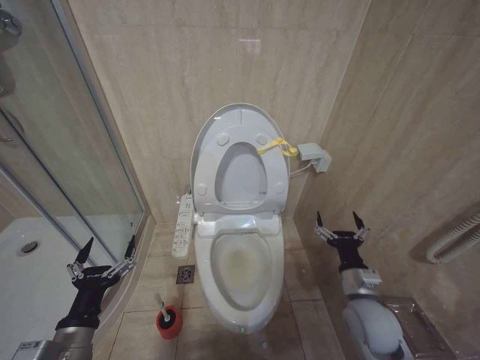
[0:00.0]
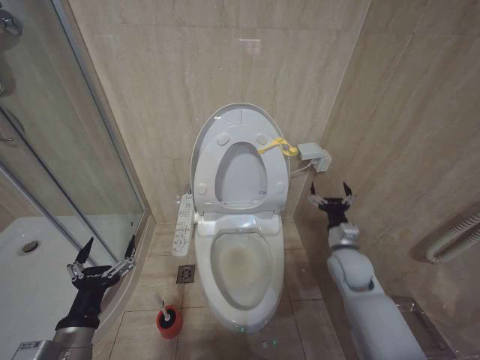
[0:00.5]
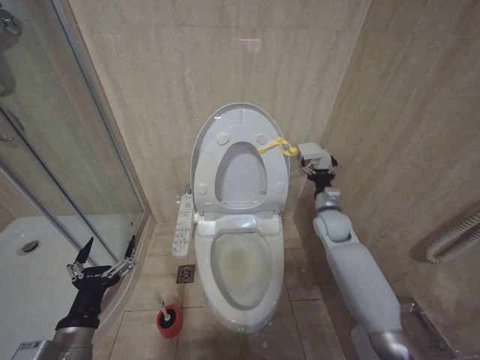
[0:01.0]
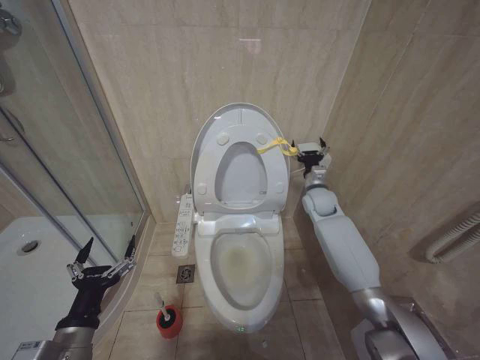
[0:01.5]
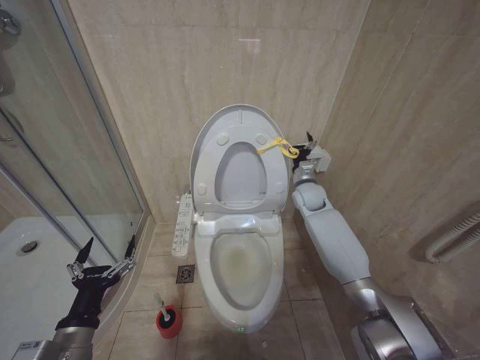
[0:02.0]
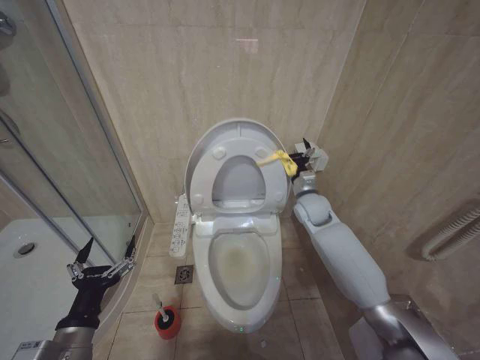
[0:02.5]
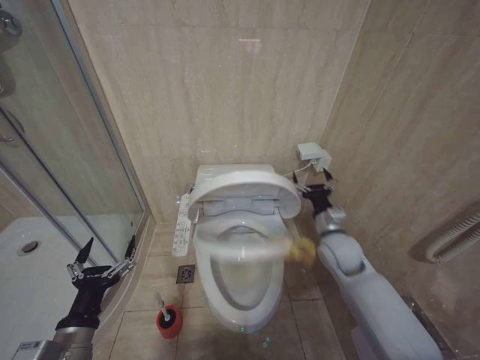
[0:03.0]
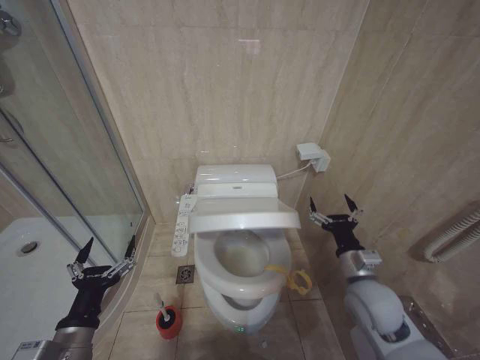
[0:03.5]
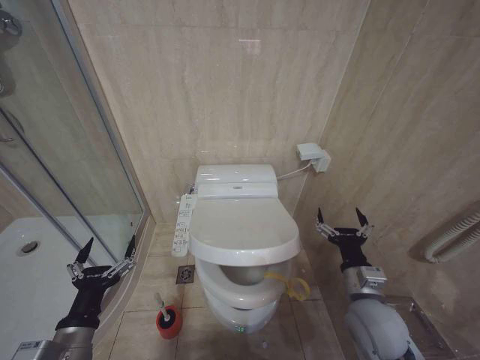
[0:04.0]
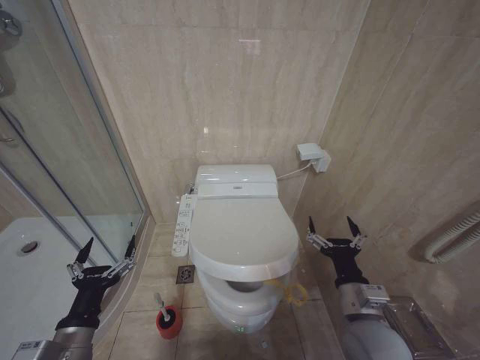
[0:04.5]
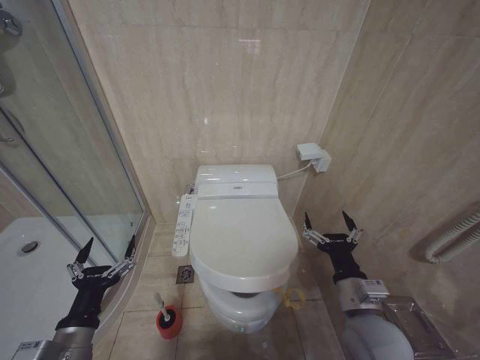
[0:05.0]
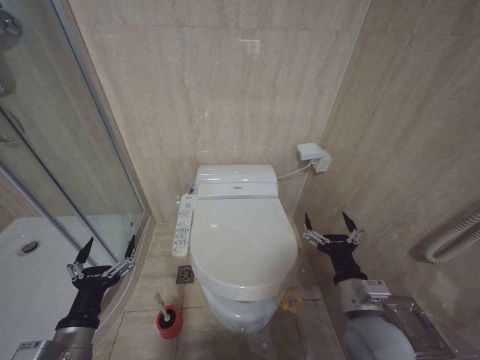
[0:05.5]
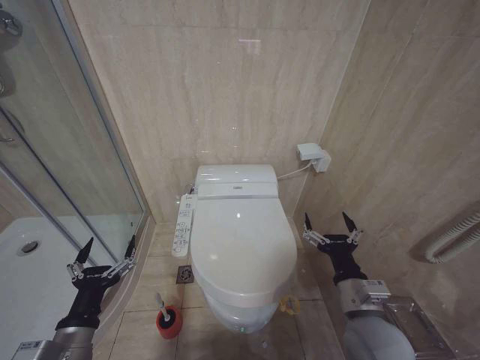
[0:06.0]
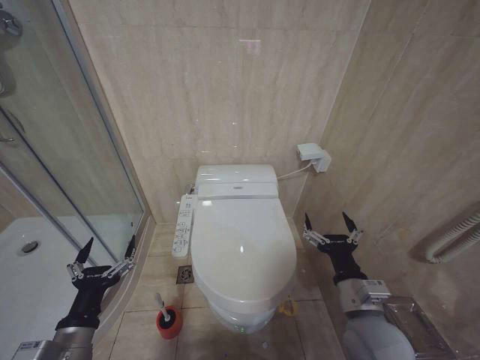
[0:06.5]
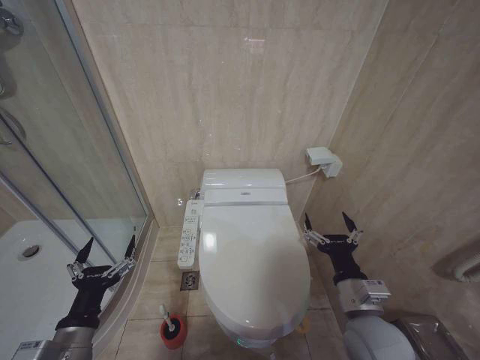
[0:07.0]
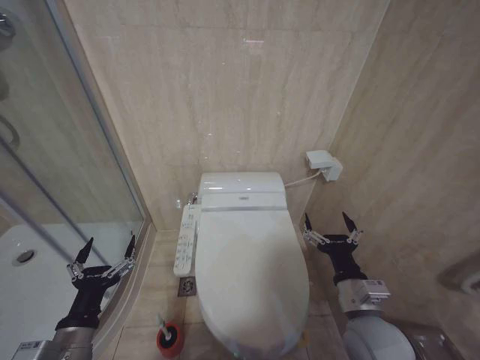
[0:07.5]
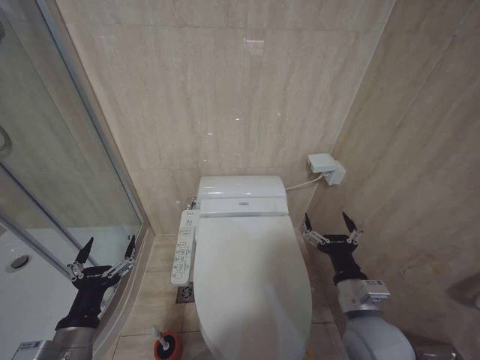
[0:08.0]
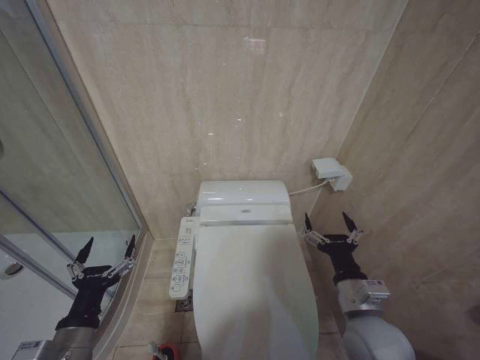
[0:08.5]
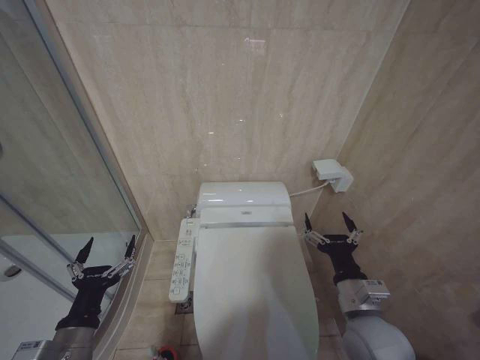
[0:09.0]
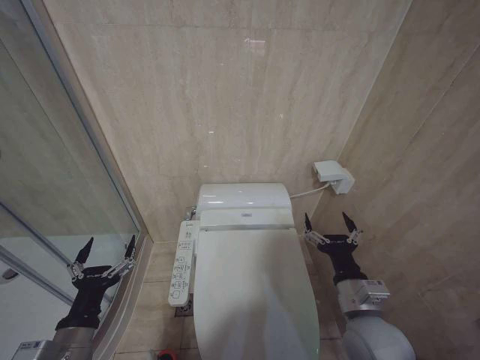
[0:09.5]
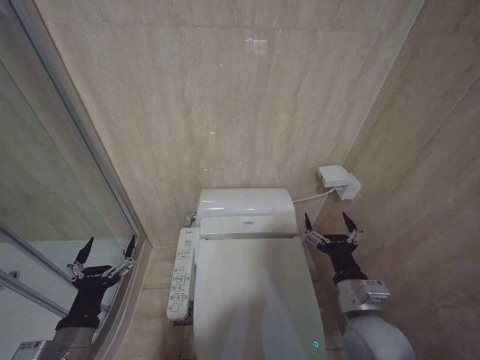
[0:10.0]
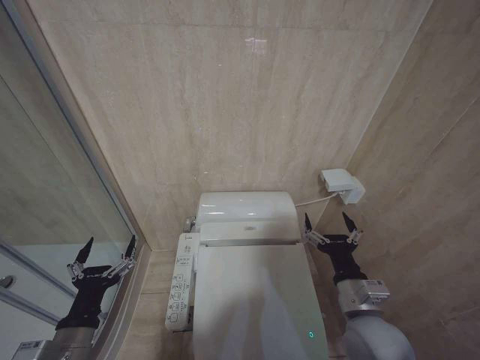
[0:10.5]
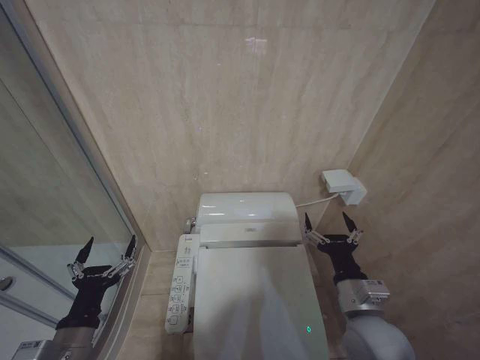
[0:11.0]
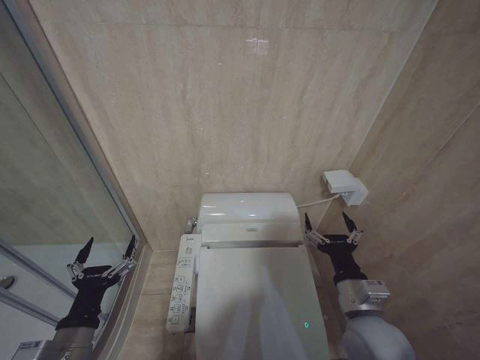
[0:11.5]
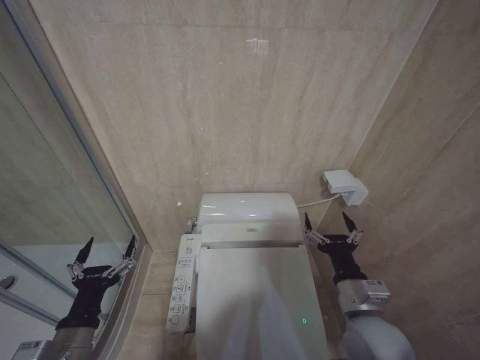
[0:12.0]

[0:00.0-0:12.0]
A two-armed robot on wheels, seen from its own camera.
Task of the whole recording: Open the toilet lid, clean the toilet bowl with a toilet brush, close the toilet lid, and flush.
0:00.0 to 0:02.0: The right gripper travels forward by about 30 cm.
0:02.0 to 0:04.0: The right gripper goes some 30 cm backward.
0:04.0 to 0:06.0: The right gripper ends up approximately 5 cm from where it was.
0:06.0 to 0:12.0: Both grippers stay put.

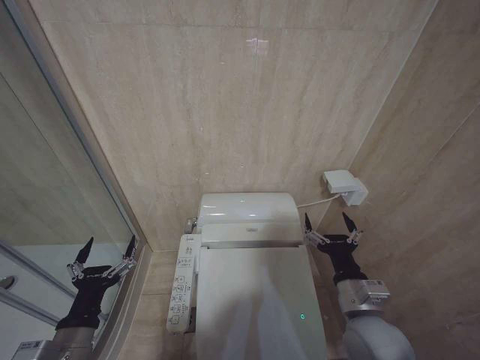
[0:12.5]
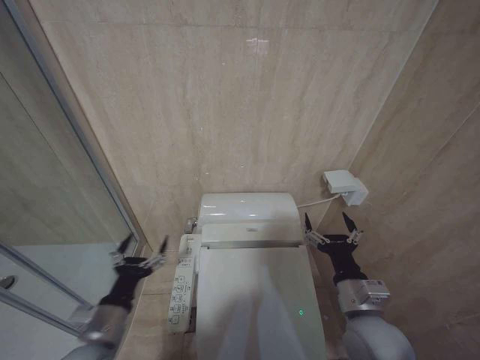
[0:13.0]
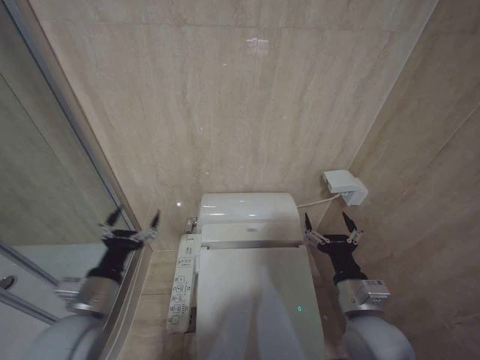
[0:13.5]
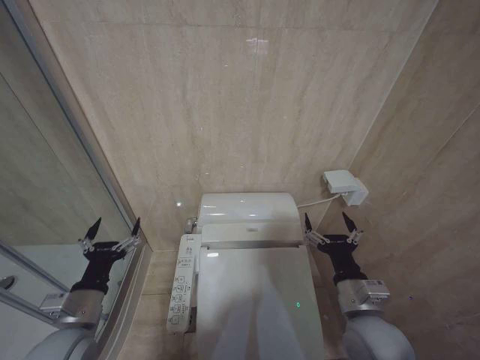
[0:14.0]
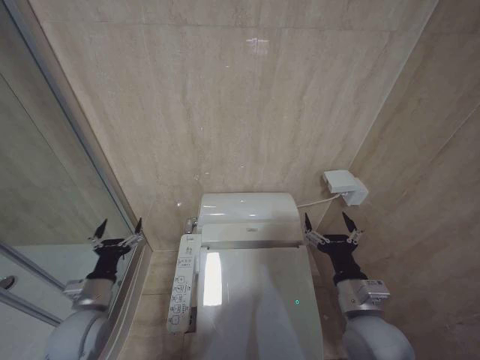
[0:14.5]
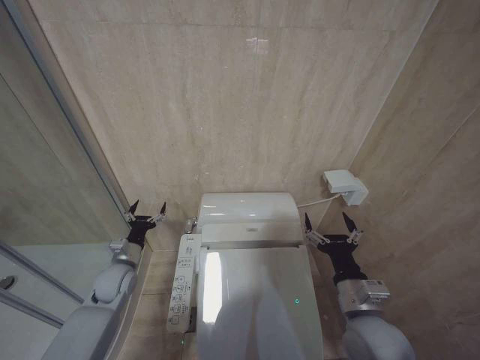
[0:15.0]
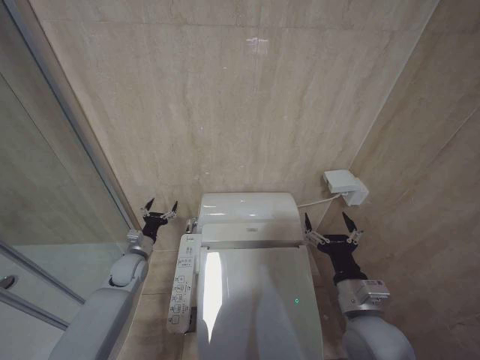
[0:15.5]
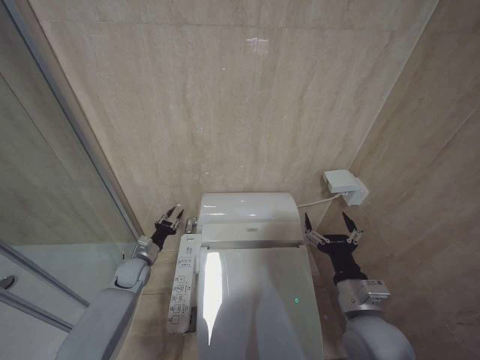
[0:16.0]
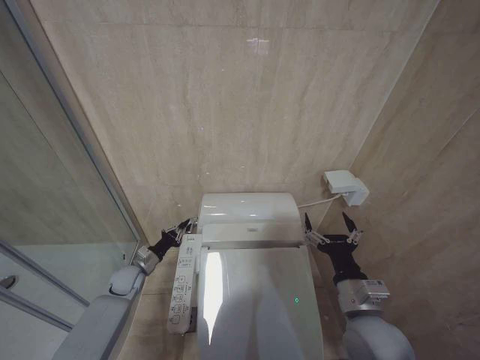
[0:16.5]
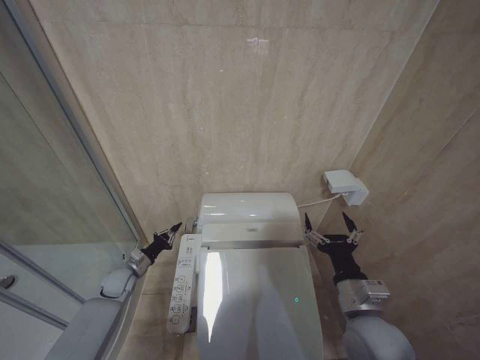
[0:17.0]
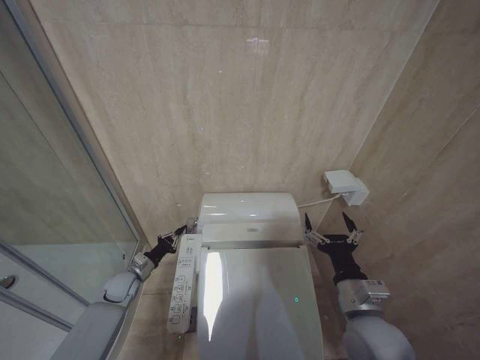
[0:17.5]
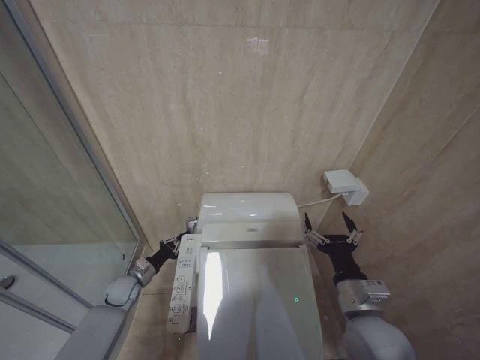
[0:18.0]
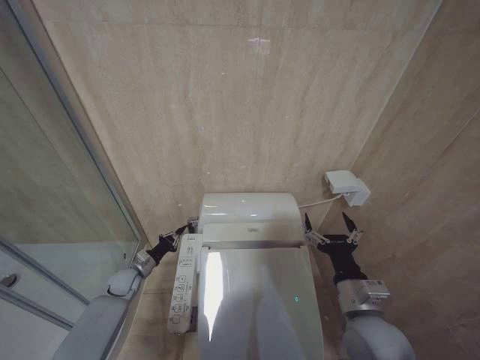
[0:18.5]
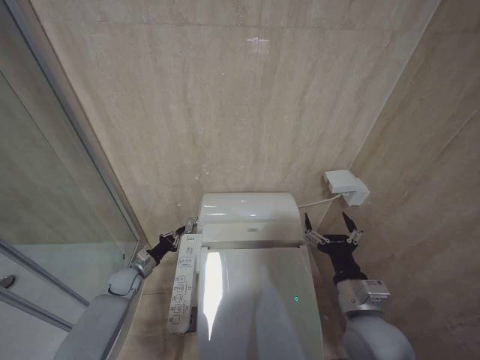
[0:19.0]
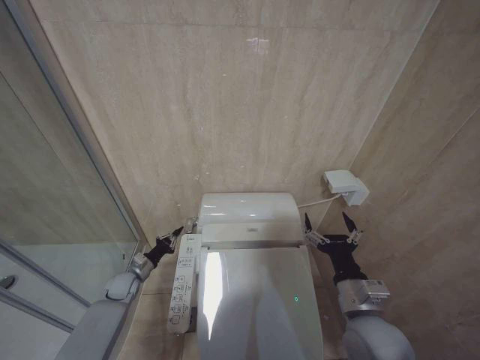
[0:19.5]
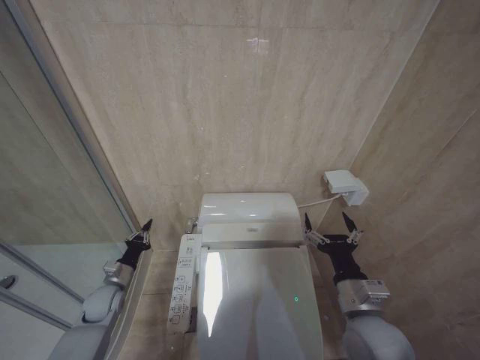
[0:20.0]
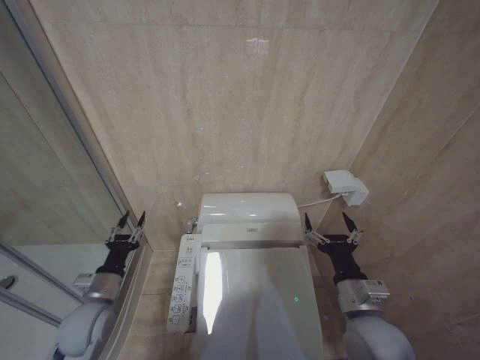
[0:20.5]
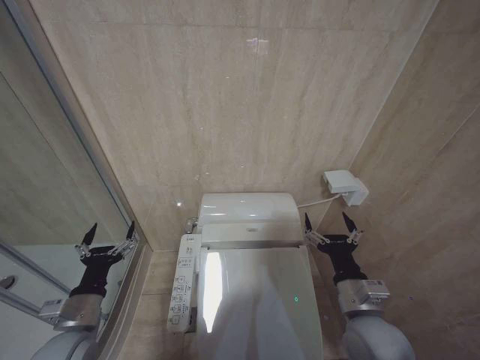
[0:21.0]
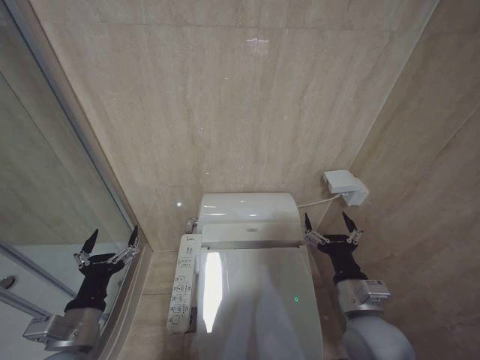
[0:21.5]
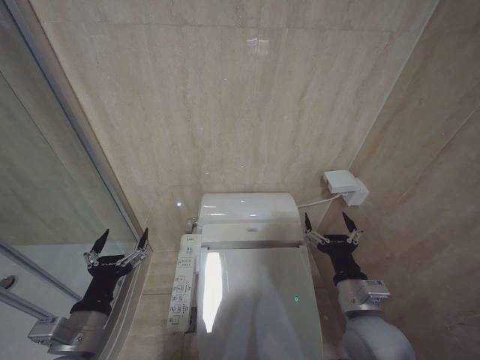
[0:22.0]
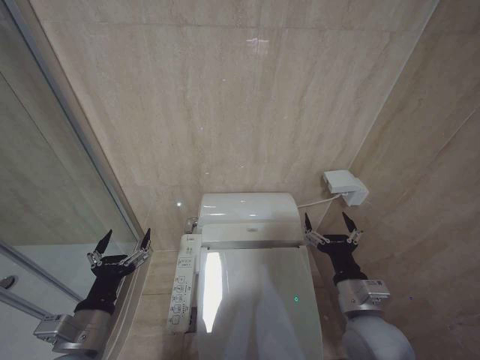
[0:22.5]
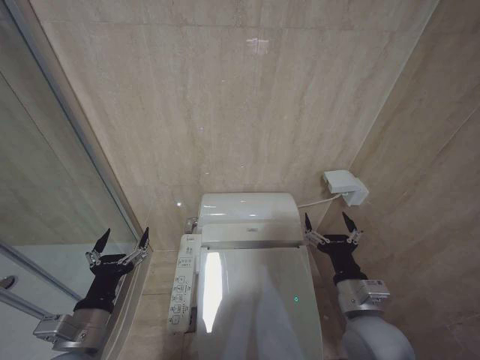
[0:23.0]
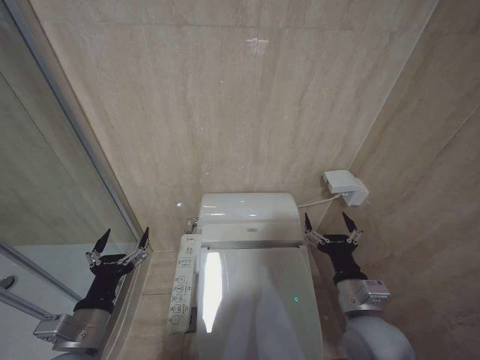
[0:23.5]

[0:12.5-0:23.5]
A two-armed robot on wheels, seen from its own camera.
Task of the whole recording: Open the toilet lid, clean the toilet bowl with a toilet brush, close the toilet lid, and flush.
0:12.5 to 0:14.5: The left gripper goes some 10 cm forward.
0:14.5 to 0:16.0: The left gripper shifts roughly 20 cm forward and downward, and closes.
0:16.0 to 0:18.0: The left gripper moves some 5 cm, and closes.
0:20.0 to 0:21.5: The left gripper shifts about 25 cm backward and upward, and opens its fingers.
0:21.5 to 0:23.5: There are only small adjustments of the grippers.

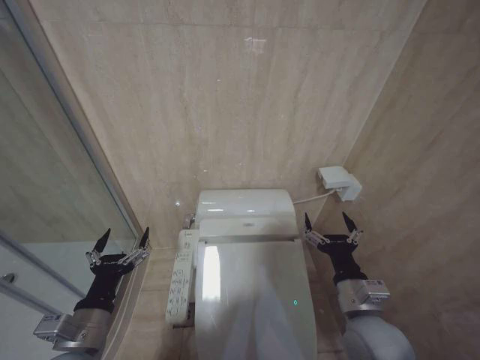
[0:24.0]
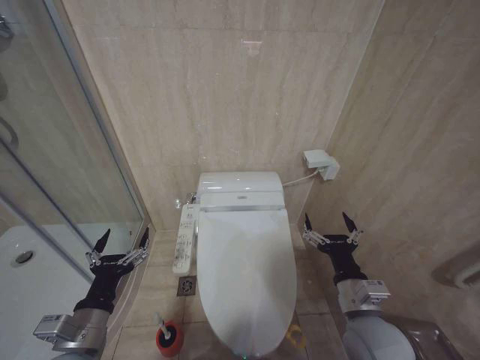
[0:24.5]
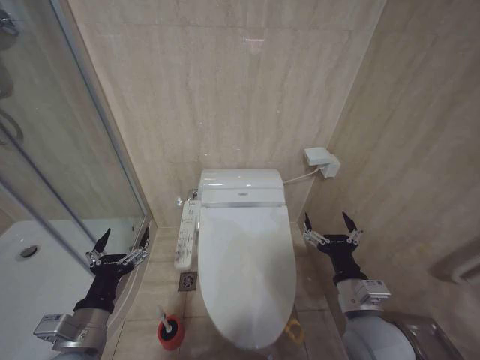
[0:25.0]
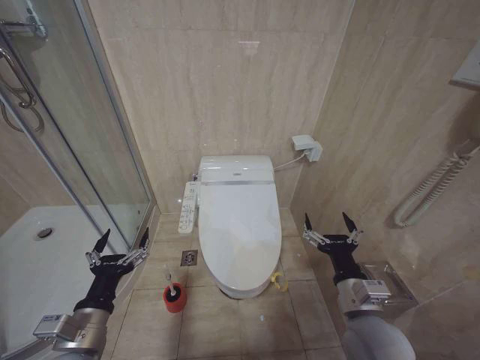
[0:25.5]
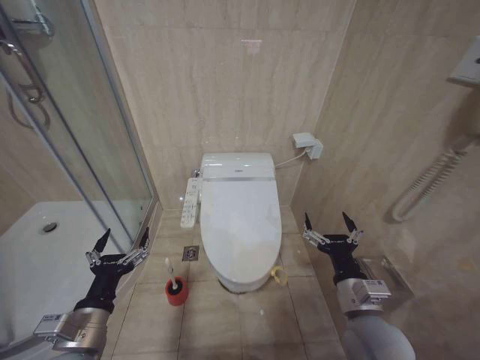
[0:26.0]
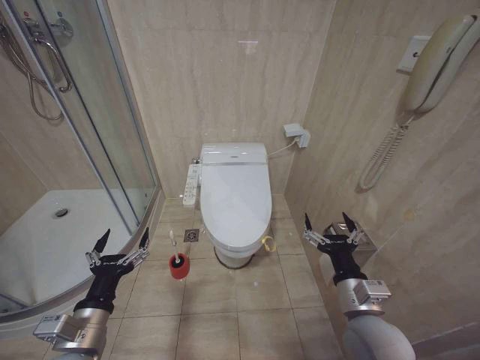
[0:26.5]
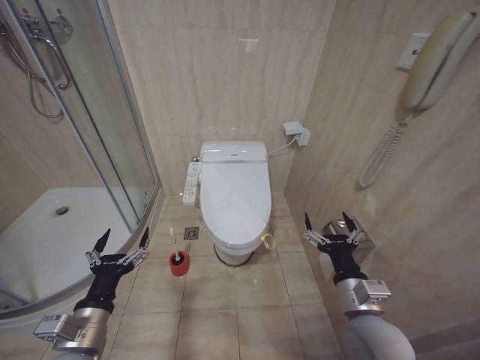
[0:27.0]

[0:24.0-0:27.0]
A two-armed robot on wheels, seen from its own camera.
Task of the whole recording: Open the toilet lid, clean the toilet bowl with a toilet brush, close the toilet lid, and flush.
0:25.5 to 0:27.0: Neither gripper changes place.
